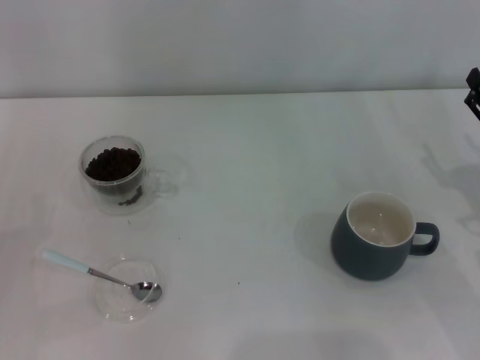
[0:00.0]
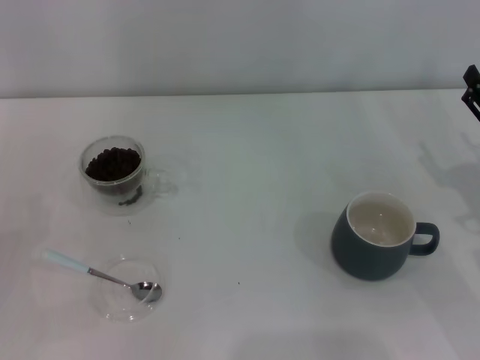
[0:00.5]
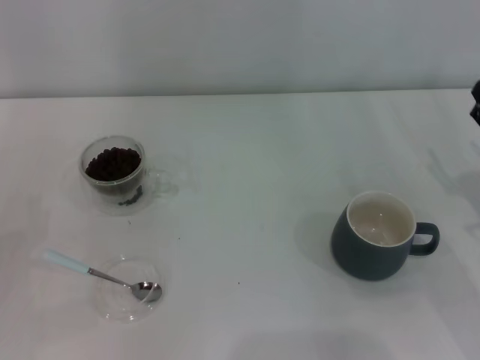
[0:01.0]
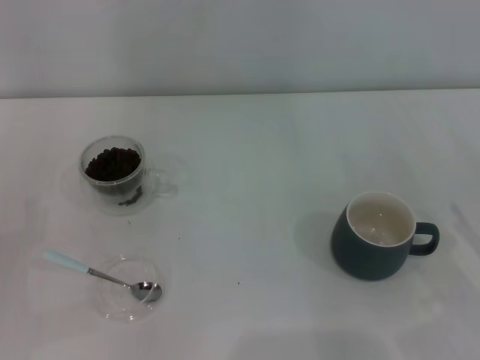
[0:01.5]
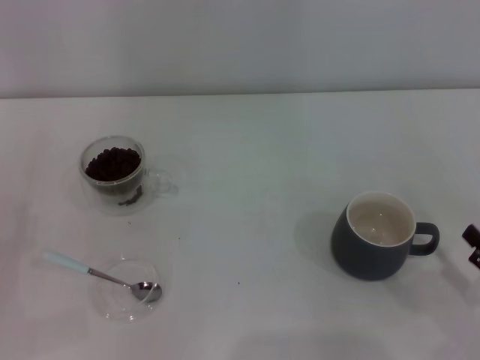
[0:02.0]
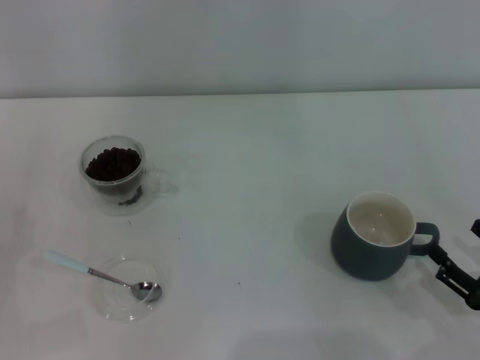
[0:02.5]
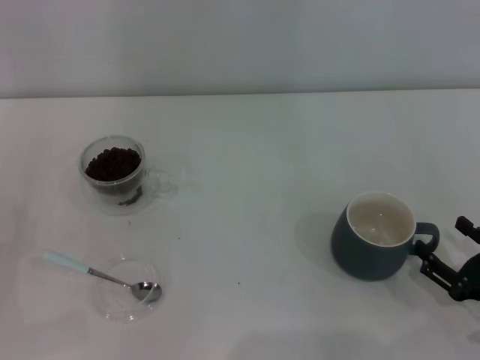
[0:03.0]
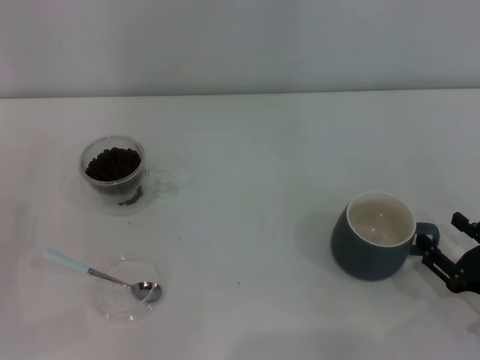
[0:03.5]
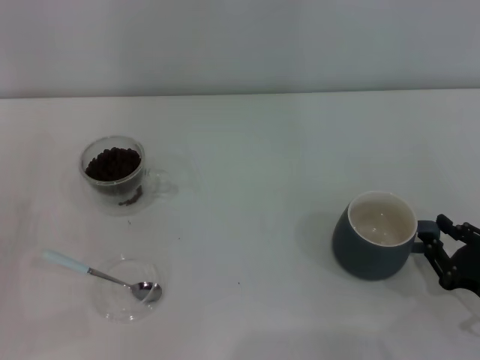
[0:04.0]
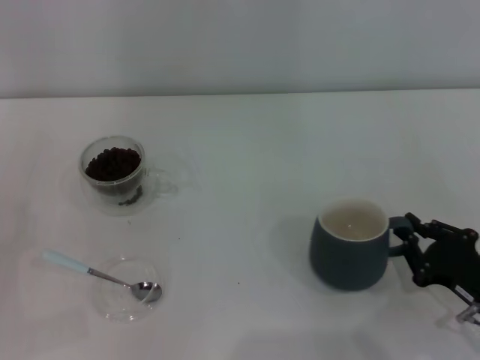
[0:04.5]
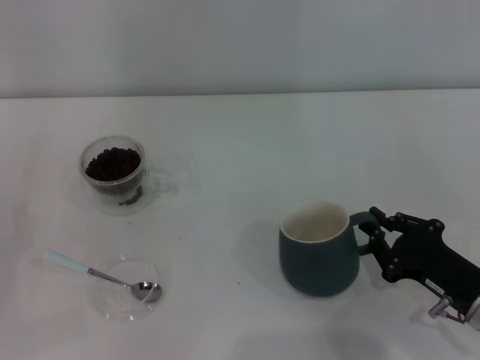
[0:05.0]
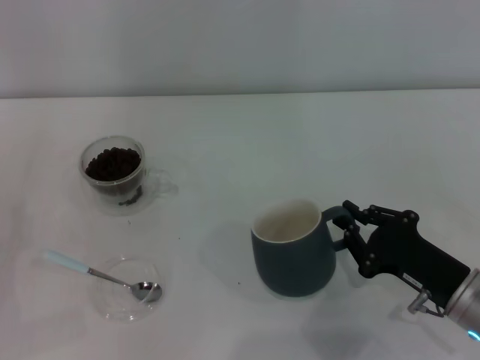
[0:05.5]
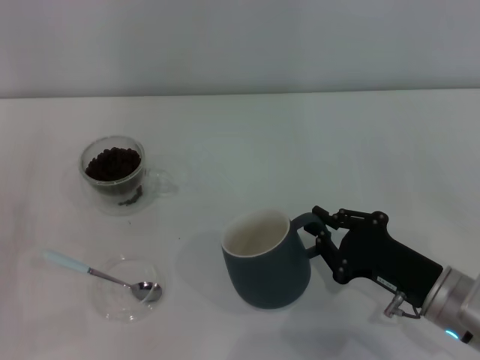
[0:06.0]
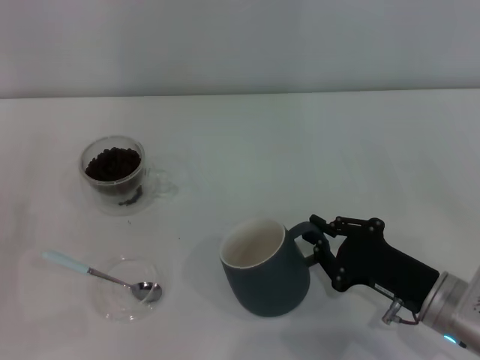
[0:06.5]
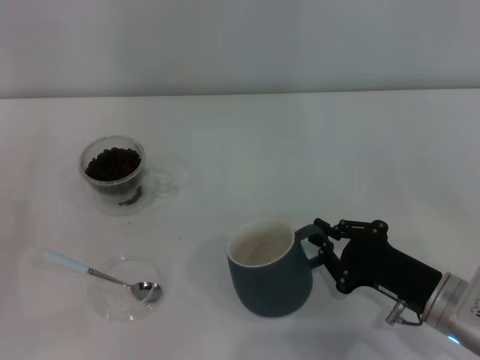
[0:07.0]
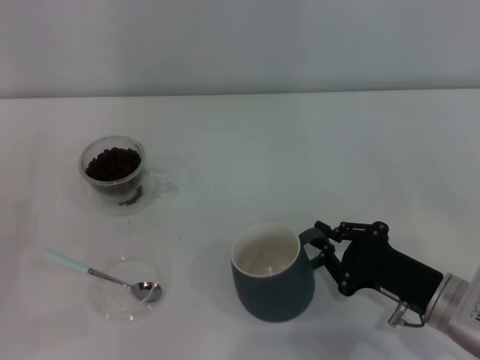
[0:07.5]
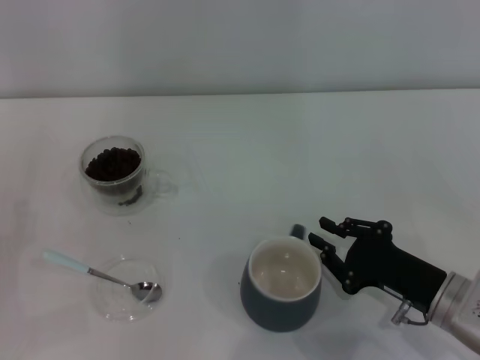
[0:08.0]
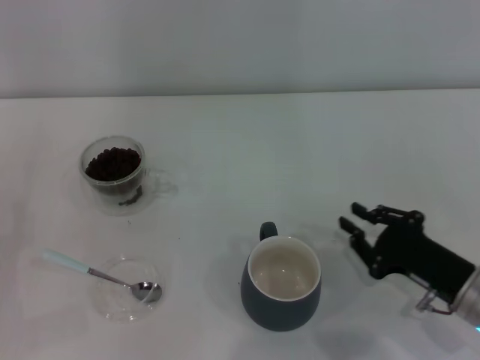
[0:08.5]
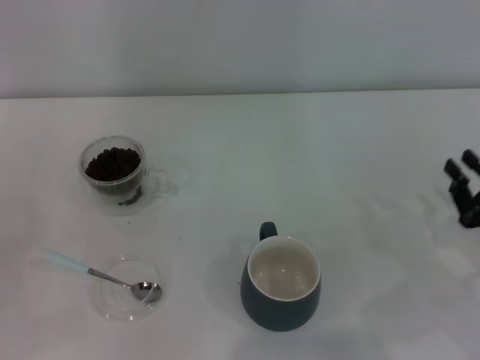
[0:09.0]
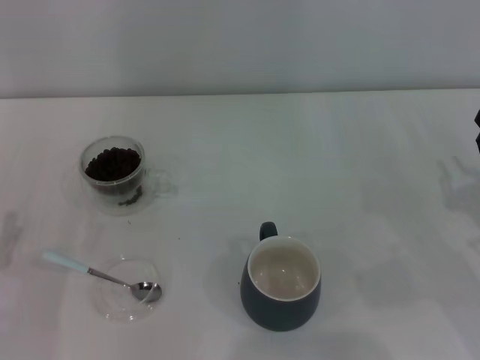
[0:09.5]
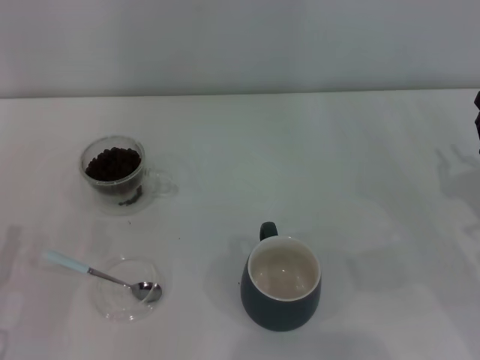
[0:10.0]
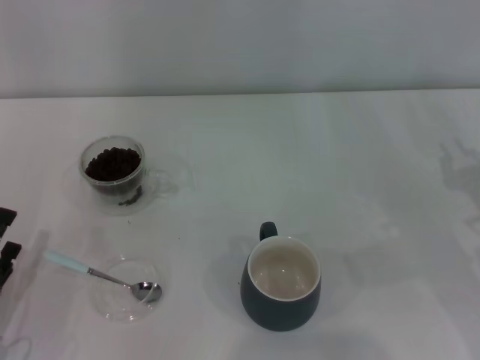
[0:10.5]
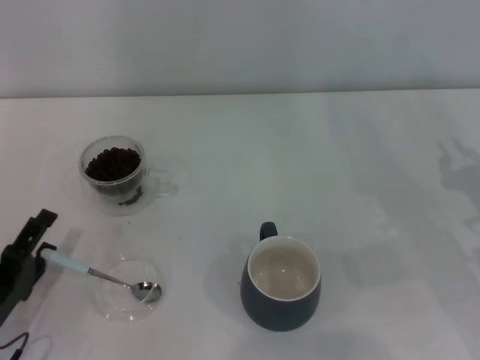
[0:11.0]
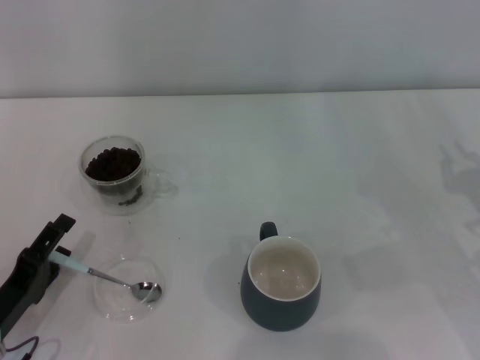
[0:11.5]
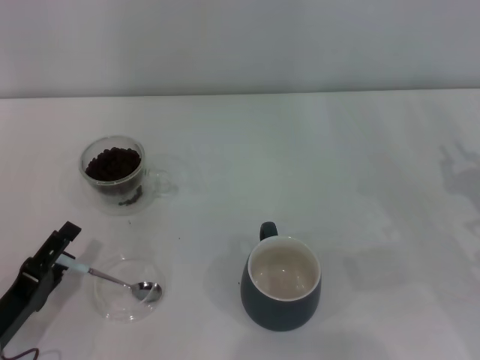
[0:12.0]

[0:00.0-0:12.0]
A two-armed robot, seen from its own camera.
Task of the whole recording: Use a blue spoon to take out the coffee beans from the glass and pour them into the gray cup.
0:00.0 to 0:02.0: The right gripper moves backward, some 15 cm.
0:02.0 to 0:04.0: The right gripper changes place by roughly 5 cm, and closes.
0:04.0 to 0:06.0: The right gripper heads to the left, covering approximately 10 cm, and closes.
0:06.0 to 0:08.0: The grippers move only a little.
0:08.0 to 0:10.0: The right gripper is displaced to the right by about 10 cm.

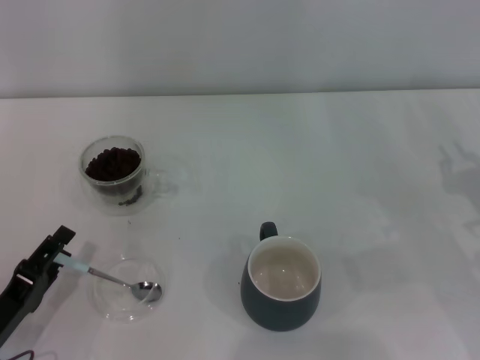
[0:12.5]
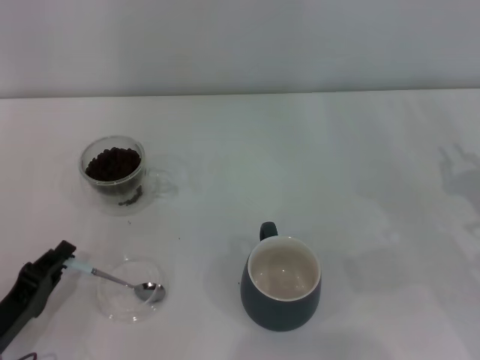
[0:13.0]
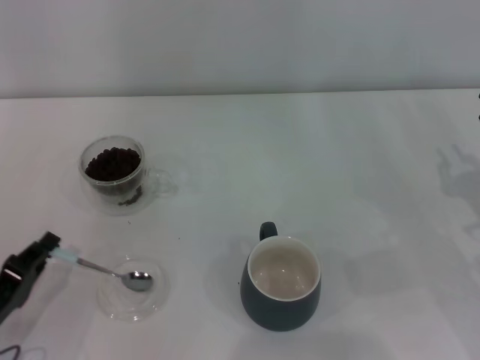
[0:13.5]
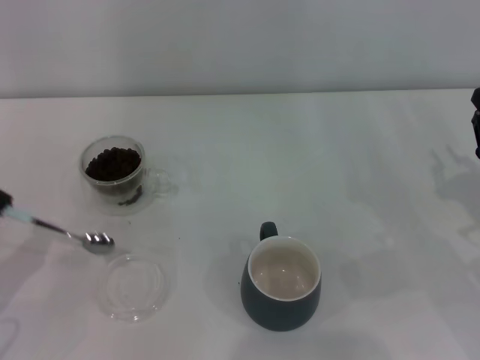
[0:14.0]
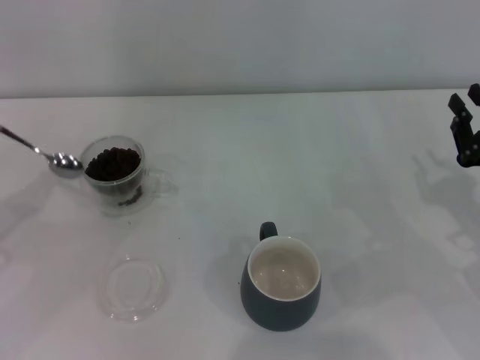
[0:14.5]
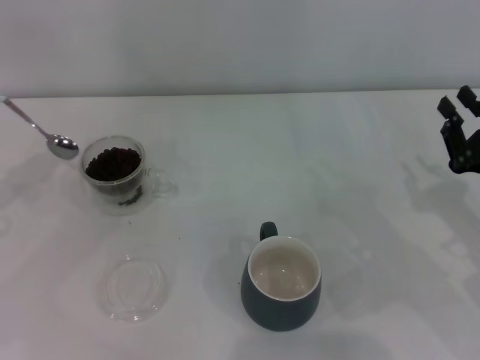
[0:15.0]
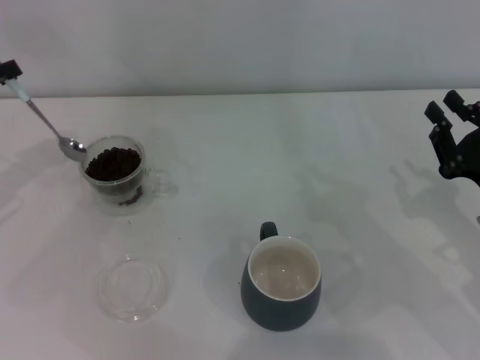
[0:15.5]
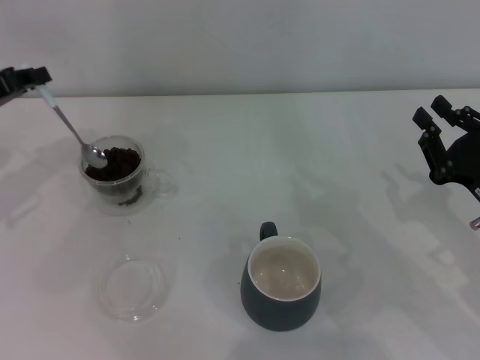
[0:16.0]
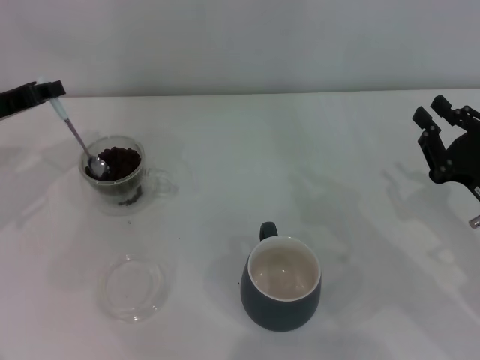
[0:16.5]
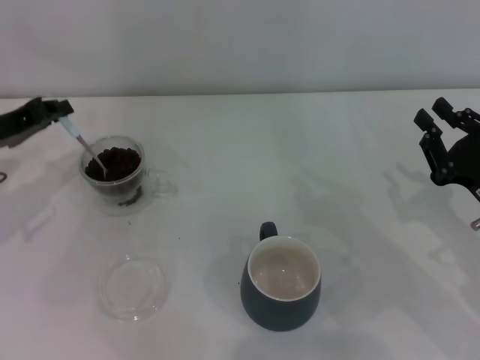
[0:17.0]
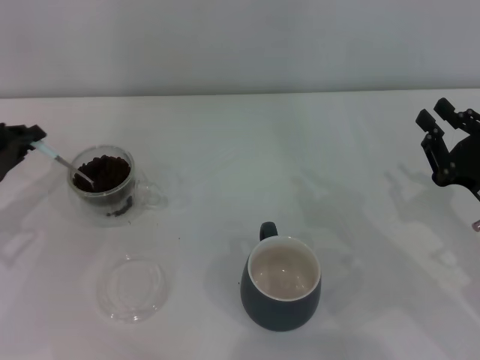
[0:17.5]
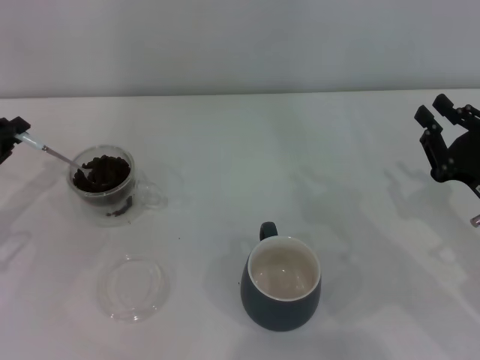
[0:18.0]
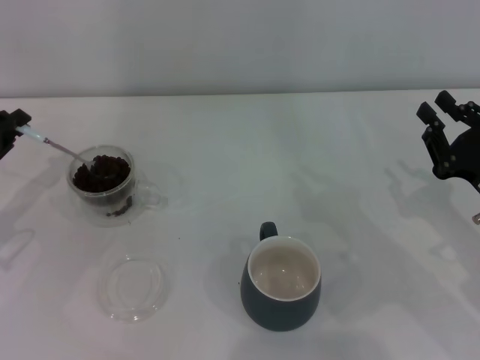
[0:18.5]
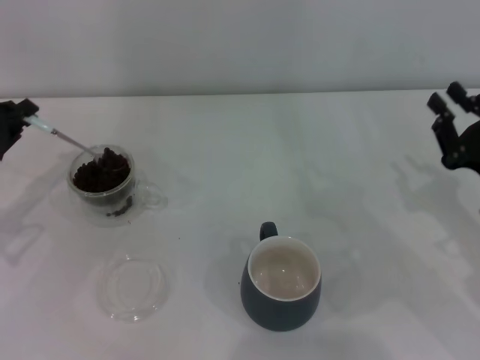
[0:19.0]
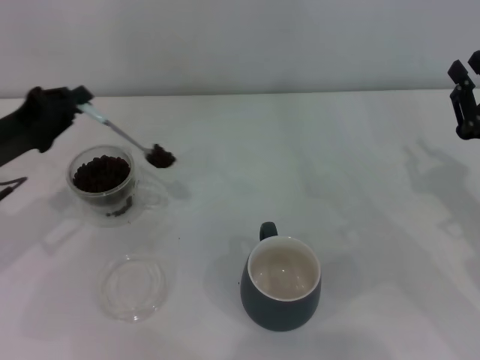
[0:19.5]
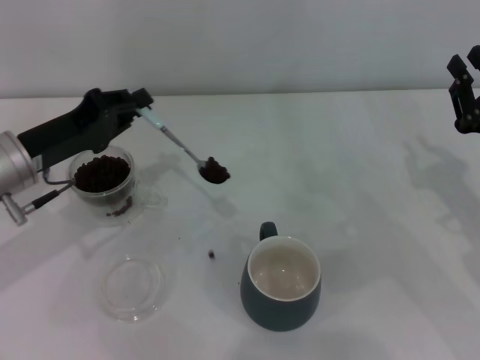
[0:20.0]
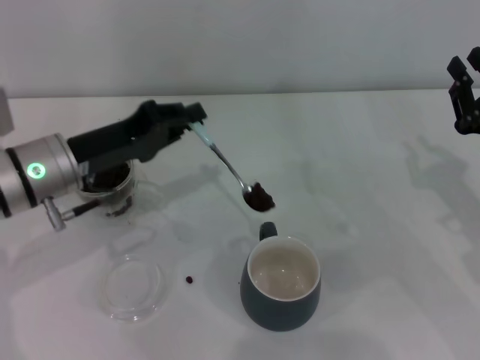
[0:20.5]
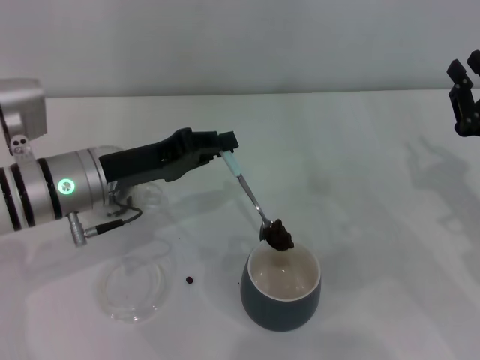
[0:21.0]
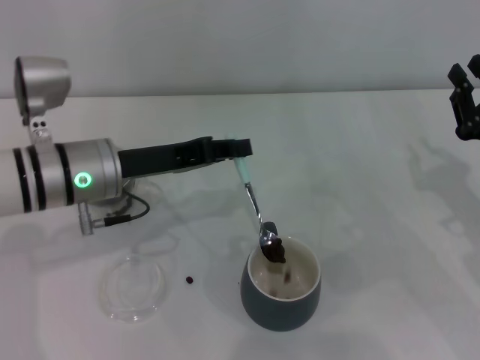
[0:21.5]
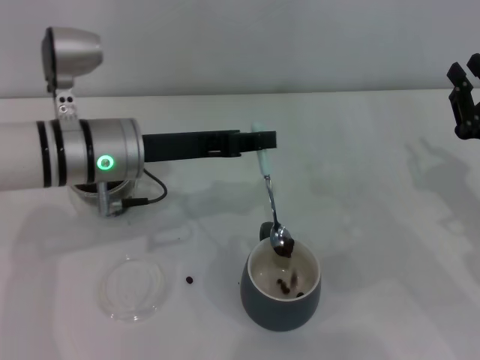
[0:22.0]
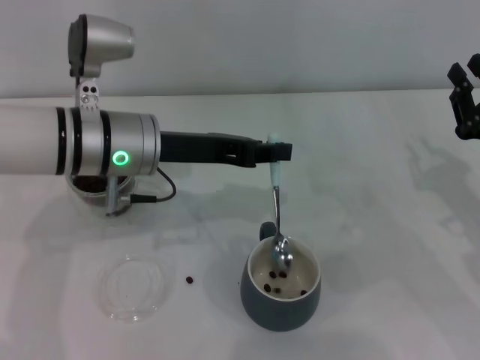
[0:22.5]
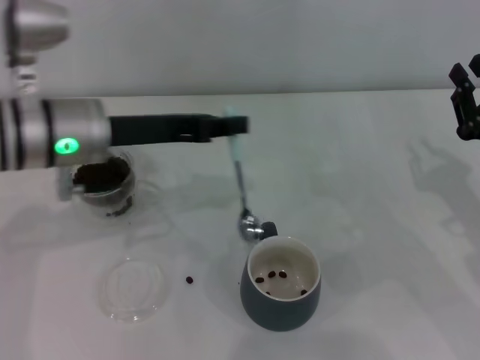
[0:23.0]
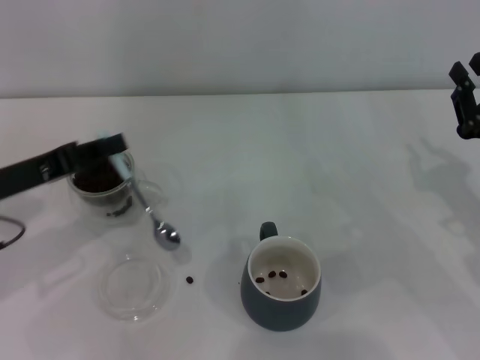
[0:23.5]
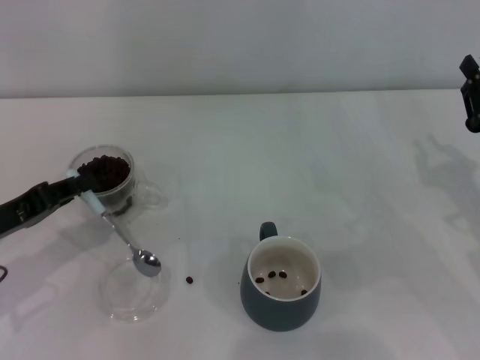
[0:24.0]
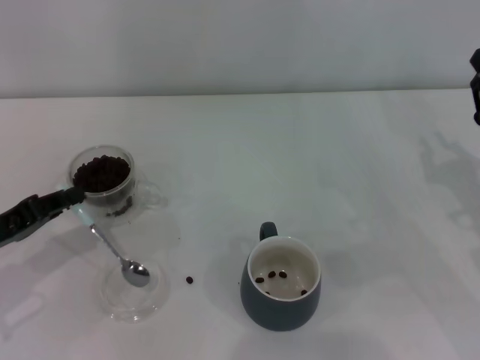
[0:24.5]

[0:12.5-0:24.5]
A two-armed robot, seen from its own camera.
Task of the whole recording: Use a blue spoon to take out the coffee beans from the glass and pour them into the gray cup.
0:12.5 to 0:14.5: The left gripper moves upward, forward and to the left, roughly 20 cm, and closes.
0:14.5 to 0:16.5: The left gripper moves forward and to the right, approximately 15 cm.
0:16.5 to 0:18.5: The left gripper travels backward by approximately 5 cm.
0:18.5 to 0:20.5: The left gripper moves to the right, some 15 cm.
0:20.5 to 0:22.5: The left gripper is displaced to the right by approximately 10 cm.
0:22.5 to 0:24.5: The left gripper travels to the left, backward and downward by about 20 cm.

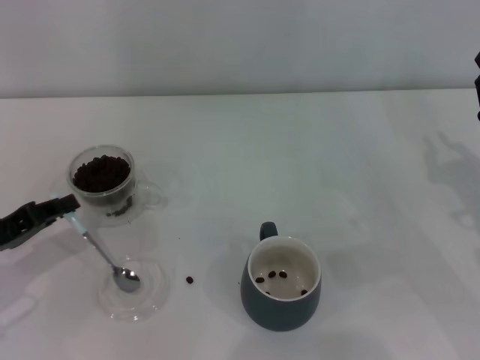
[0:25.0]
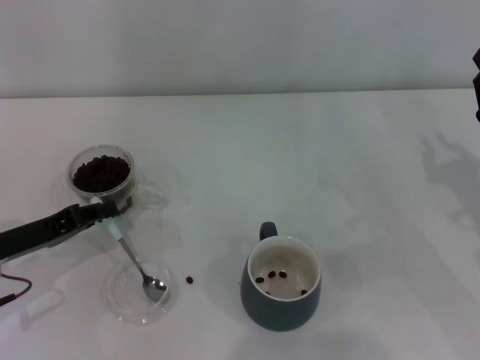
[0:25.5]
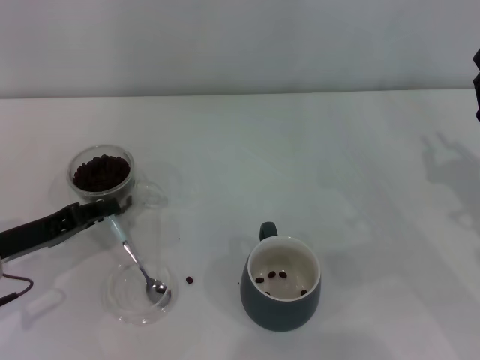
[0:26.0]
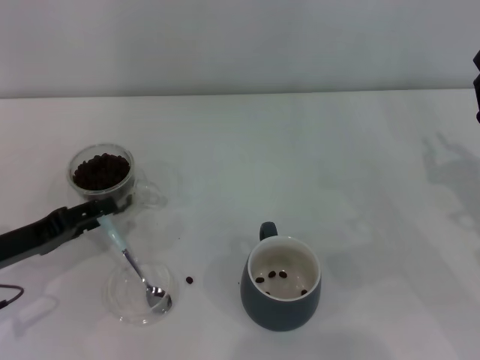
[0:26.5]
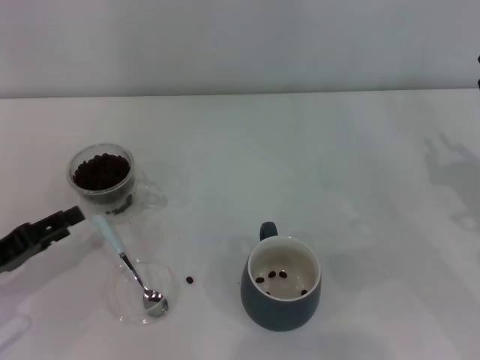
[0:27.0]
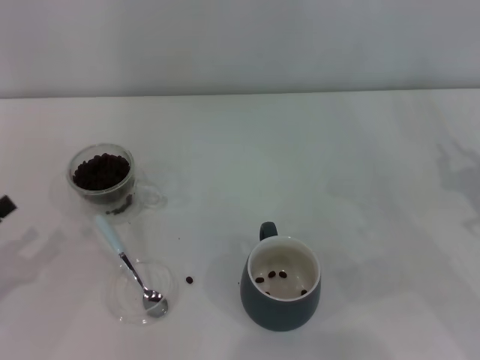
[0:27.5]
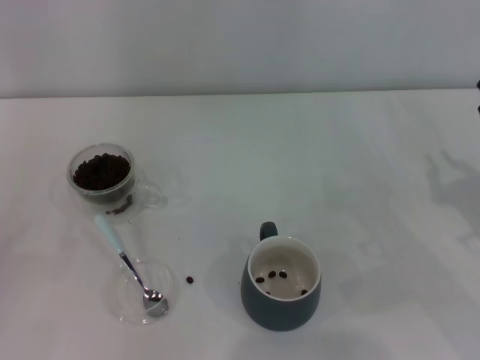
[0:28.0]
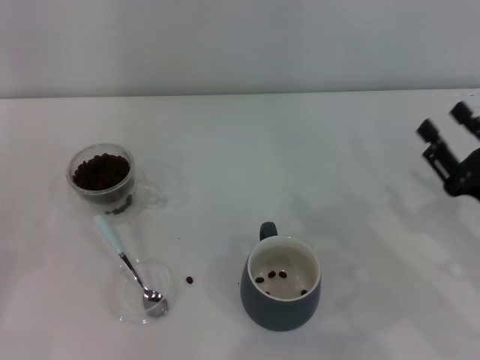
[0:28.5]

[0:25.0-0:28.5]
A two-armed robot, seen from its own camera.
Task of the whole recording: Use a blue spoon to take out the coffee beans from the glass and pour them into the gray cup.
0:25.0 to 0:27.0: The left gripper opens its fingers.
0:27.0 to 0:28.5: The left gripper heads to the left and backward, covering roughly 10 cm. Meanwhile the right gripper shifts by roughly 5 cm, and opens its fingers.
